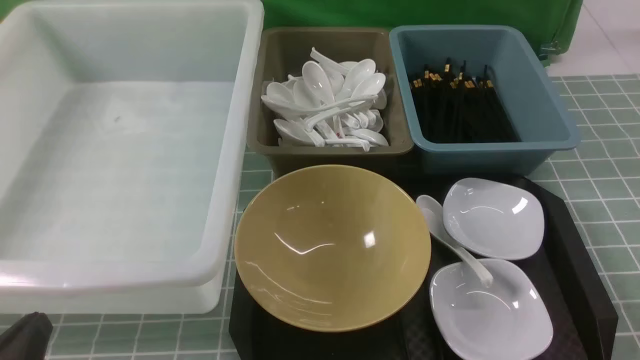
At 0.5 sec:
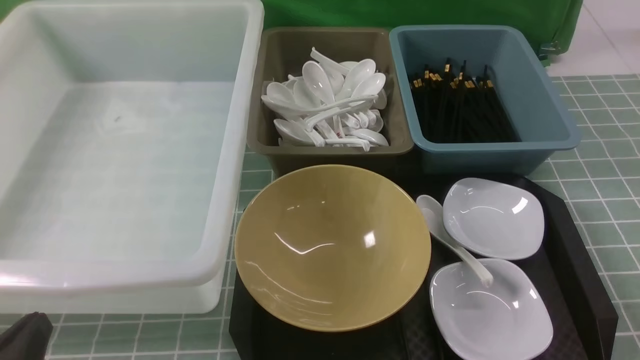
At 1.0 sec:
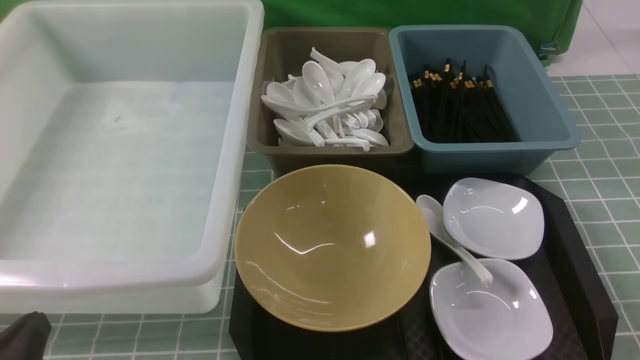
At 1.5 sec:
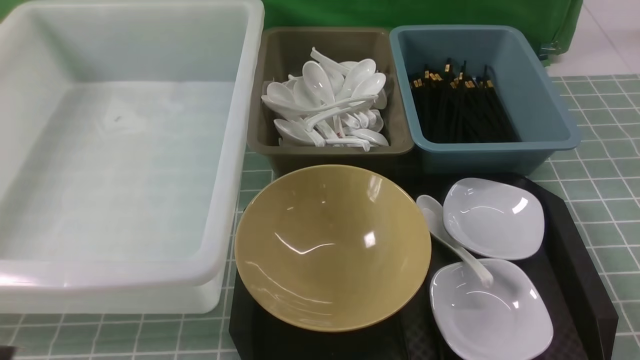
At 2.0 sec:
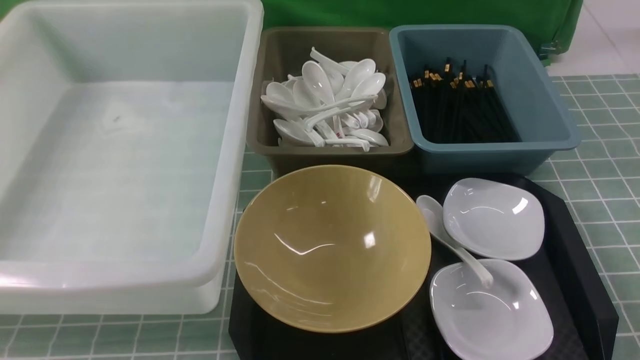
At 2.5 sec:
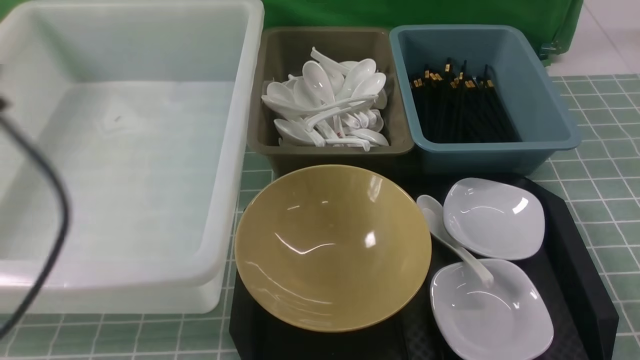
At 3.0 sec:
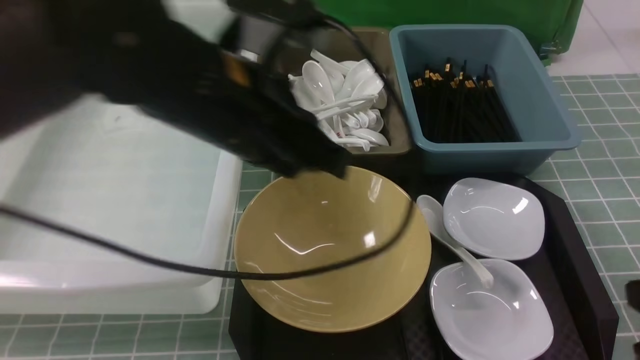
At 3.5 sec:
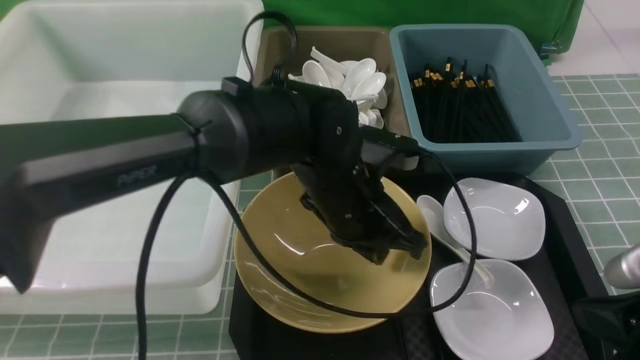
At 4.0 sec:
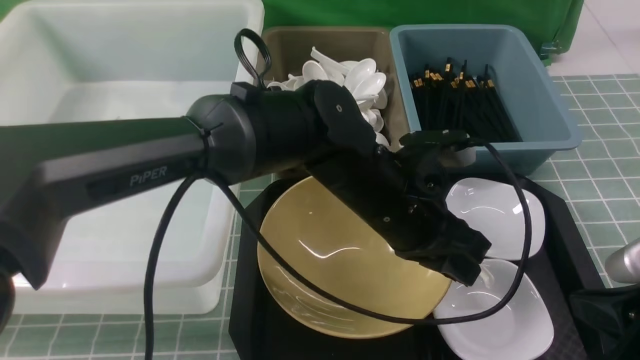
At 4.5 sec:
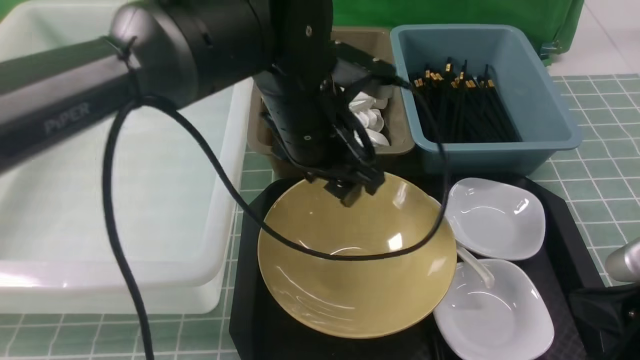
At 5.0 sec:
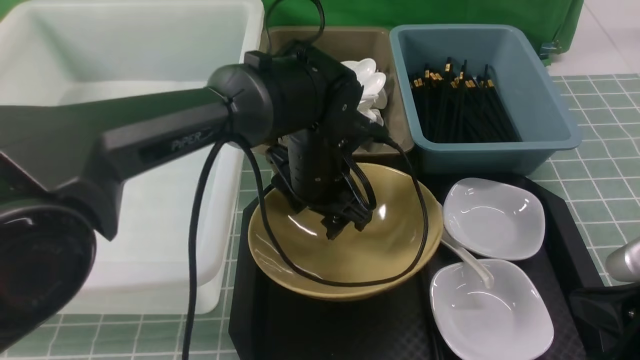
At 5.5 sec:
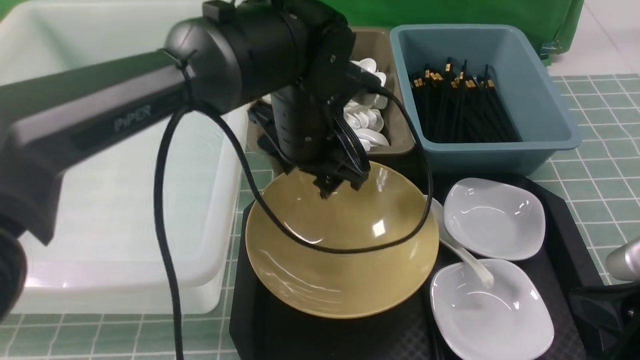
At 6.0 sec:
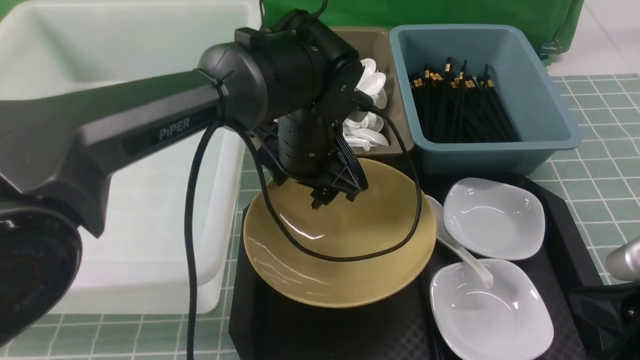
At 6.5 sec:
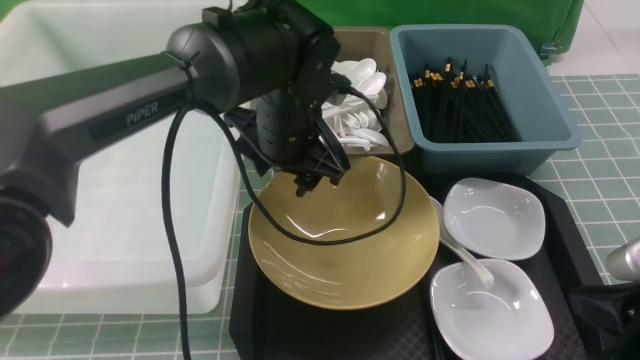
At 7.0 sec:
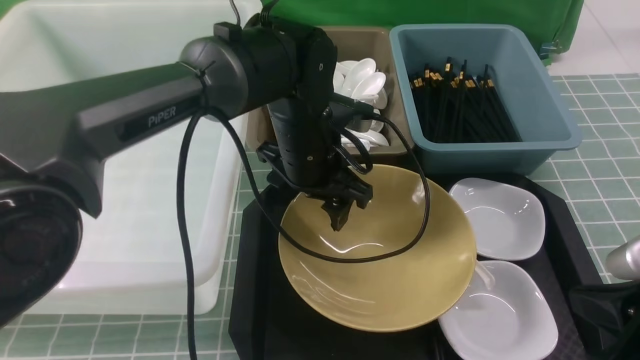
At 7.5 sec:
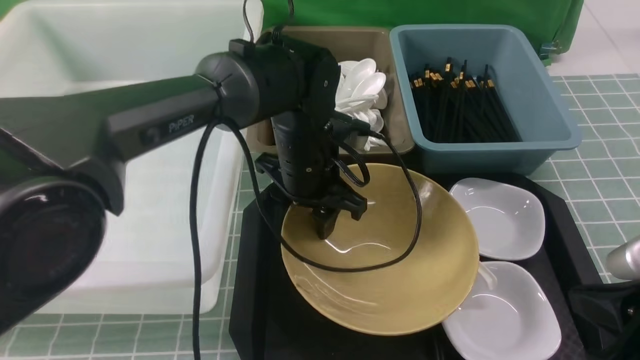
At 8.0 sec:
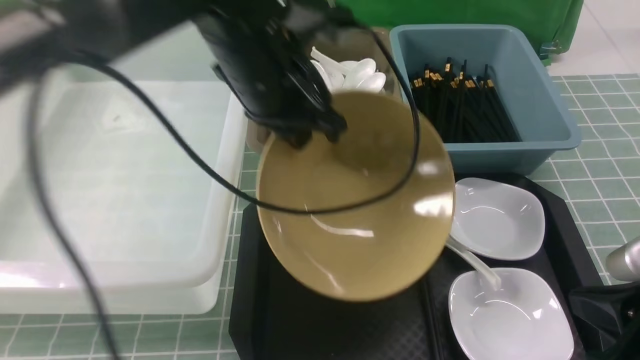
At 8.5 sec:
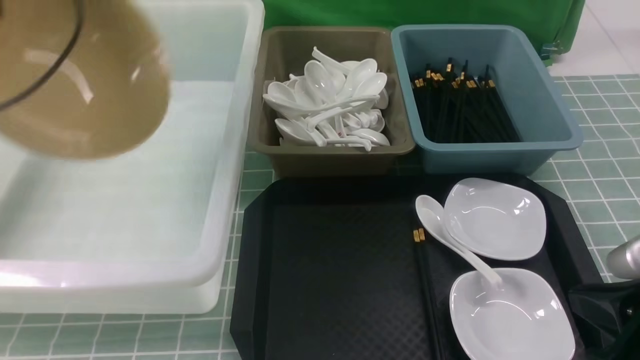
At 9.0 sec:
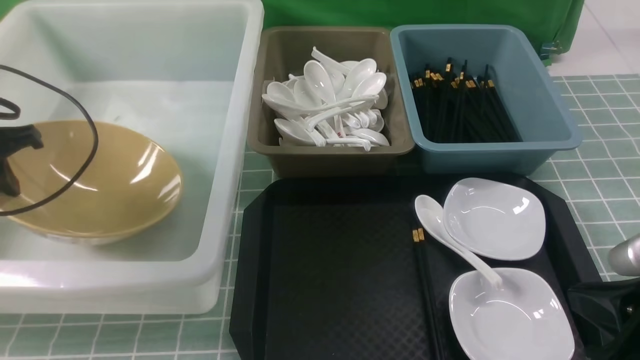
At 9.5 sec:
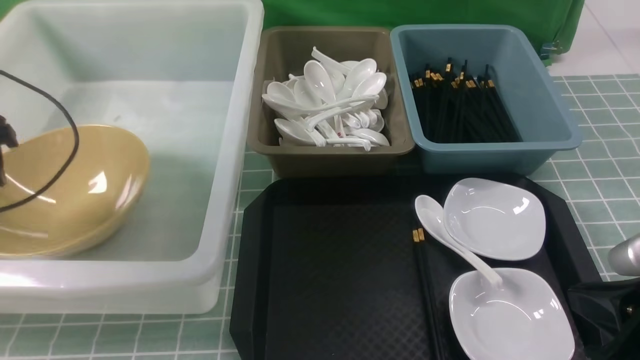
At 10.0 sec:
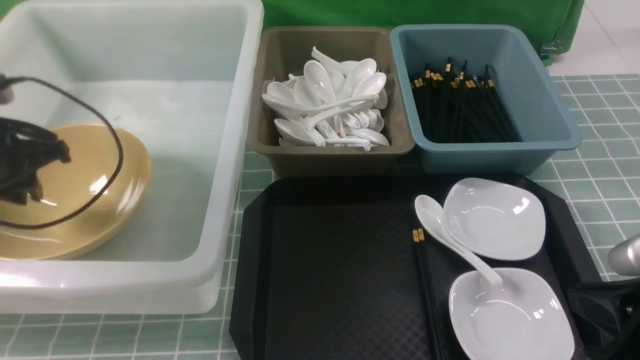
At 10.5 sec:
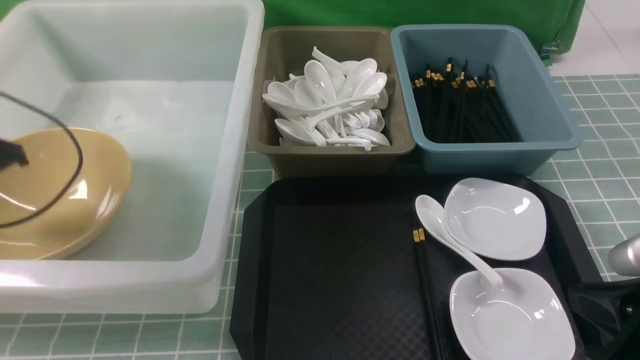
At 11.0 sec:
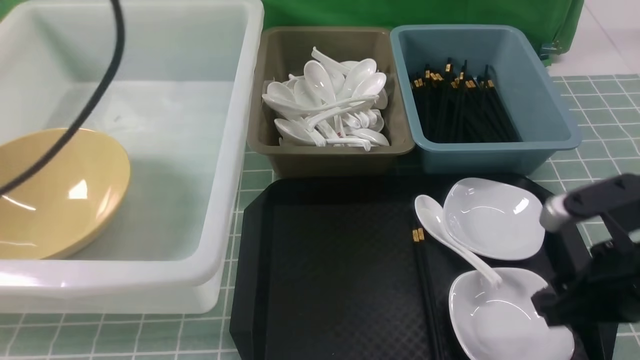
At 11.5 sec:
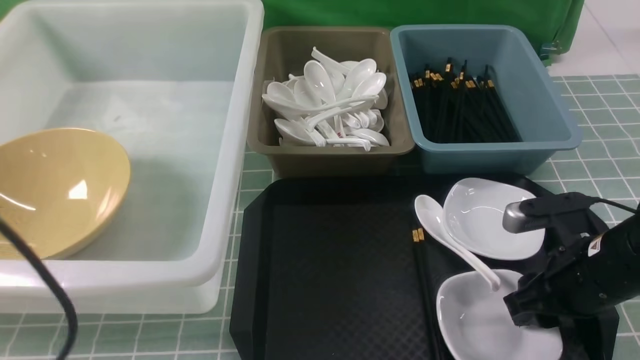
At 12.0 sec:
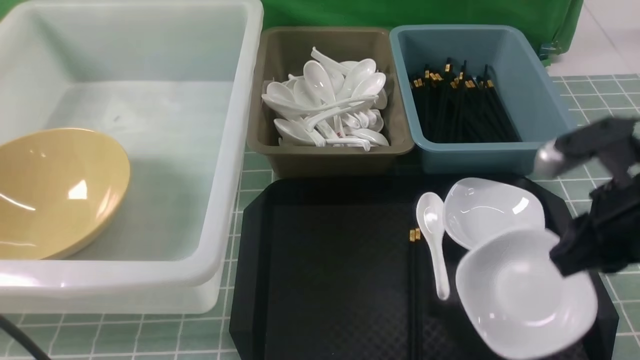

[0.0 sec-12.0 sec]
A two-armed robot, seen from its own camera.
Task of the whole recording: on blue table put chopsticks spoon bowls plates into blue grey white boxes.
Step, 0.0 sec to 7.5 sec: use the left arm to grab the yellow noodle bowl on the left.
Step, 8.0 sec to 9.5 sec: use the left arm to put the noodle bowl into the large storage box on the left.
Step, 10.0 sec to 11.5 sec: use the right arm to grab the plate.
0.0 sec to 2.0 sec: The left gripper goes about 15 cm upward.
2.0 sec to 4.0 sec: The right gripper heads forward, downward and to the left, covering approximately 15 cm. The left gripper is displaced to the right and forward by about 40 cm.
4.0 sec to 6.0 sec: The left gripper is displaced forward and to the left by some 10 cm, and opens.
6.0 sec to 8.0 sec: The left gripper heads upward and to the left, covering about 15 cm, and closes its fingers.
8.0 sec to 10.0 sec: The left gripper shifts roughly 30 cm to the left and downward, and opens, then closes once more.
10.0 sec to 12.0 sec: The left gripper travels backward by about 25 cm. Meanwhile the right gripper shifts roughly 10 cm forward and upward, and opens, then closes again.

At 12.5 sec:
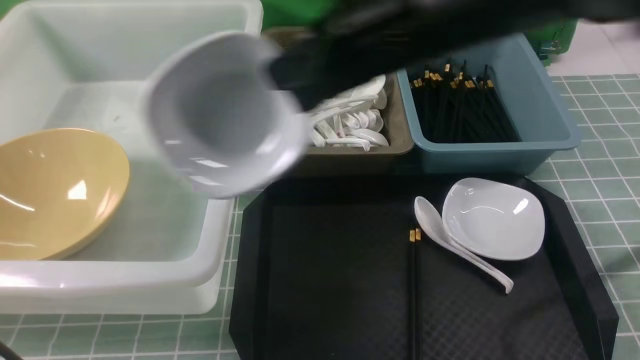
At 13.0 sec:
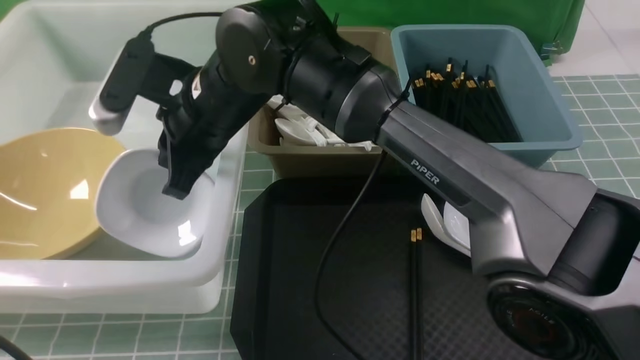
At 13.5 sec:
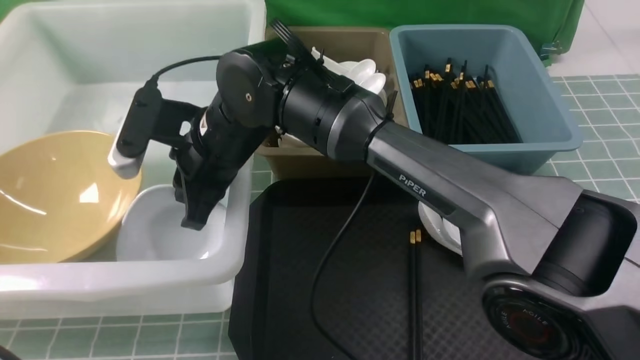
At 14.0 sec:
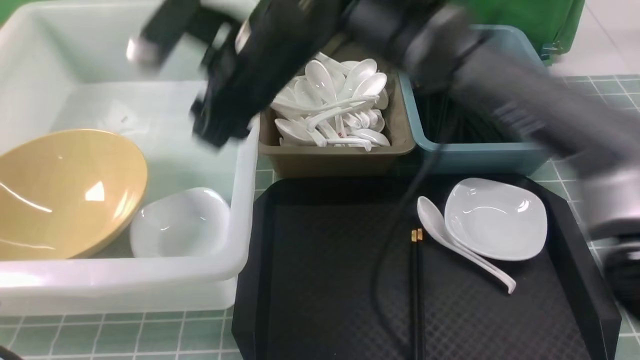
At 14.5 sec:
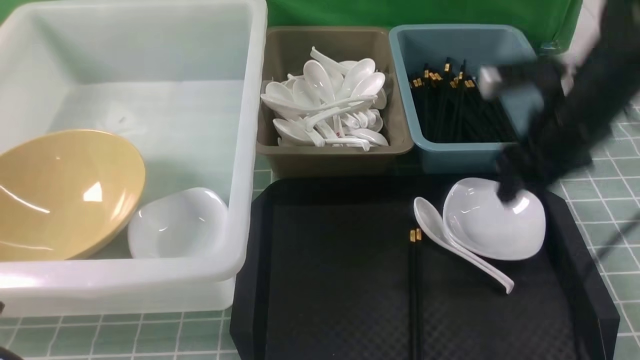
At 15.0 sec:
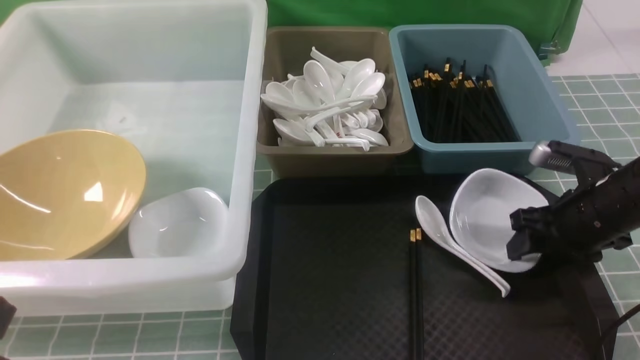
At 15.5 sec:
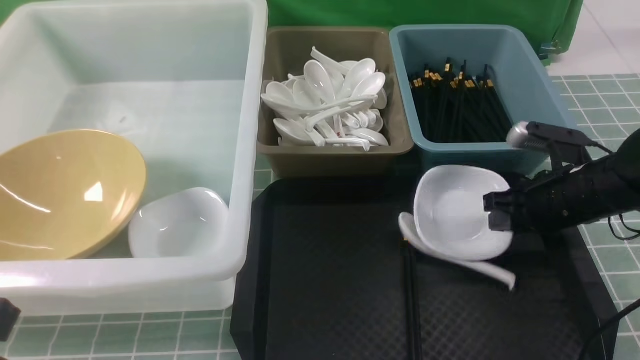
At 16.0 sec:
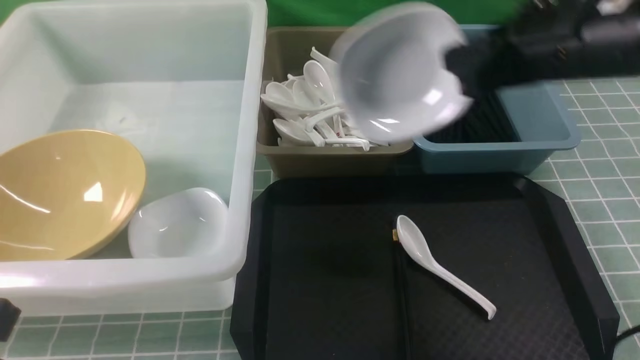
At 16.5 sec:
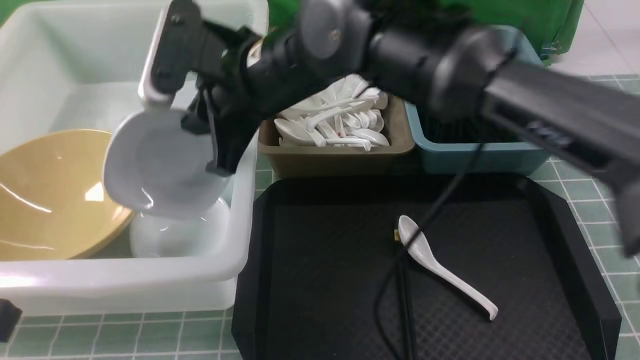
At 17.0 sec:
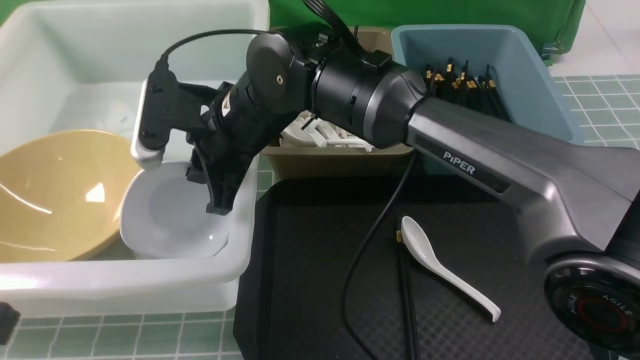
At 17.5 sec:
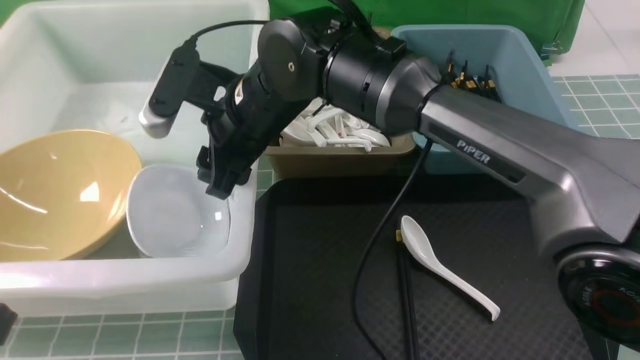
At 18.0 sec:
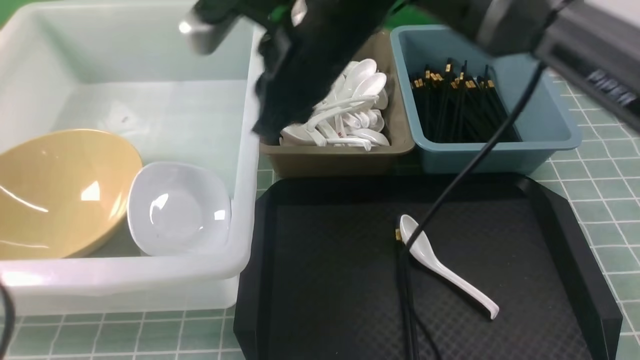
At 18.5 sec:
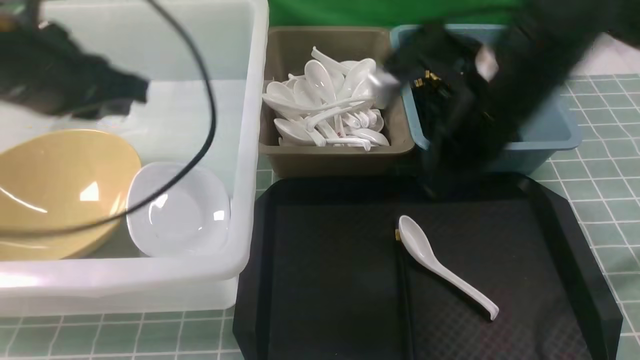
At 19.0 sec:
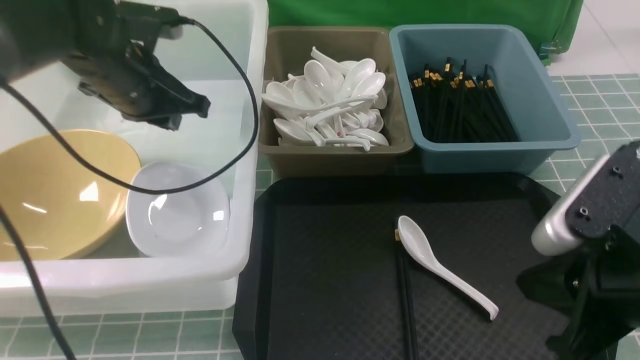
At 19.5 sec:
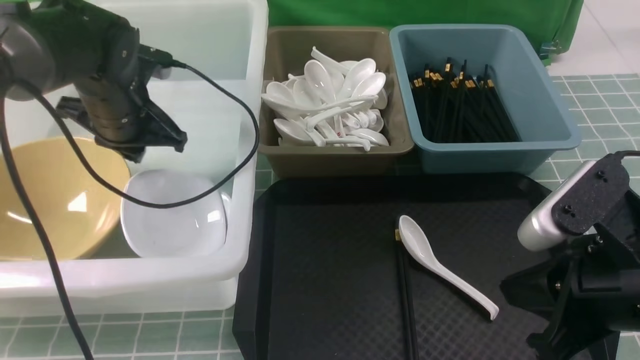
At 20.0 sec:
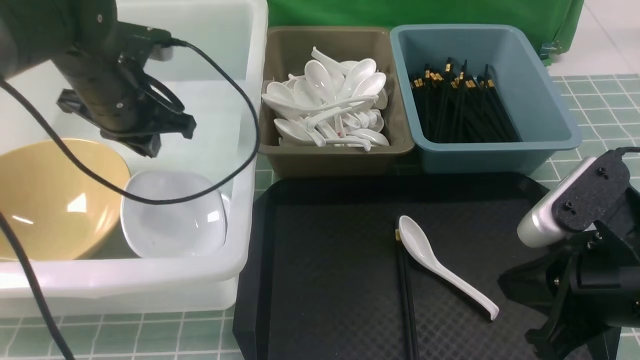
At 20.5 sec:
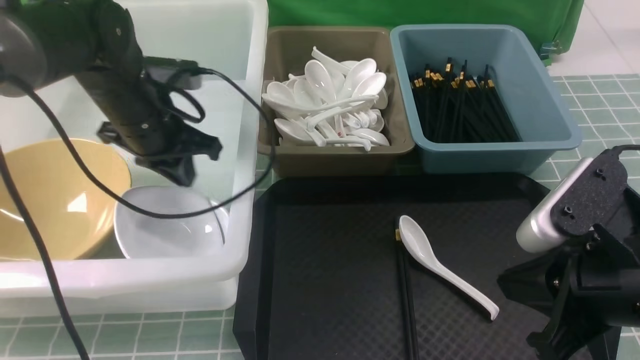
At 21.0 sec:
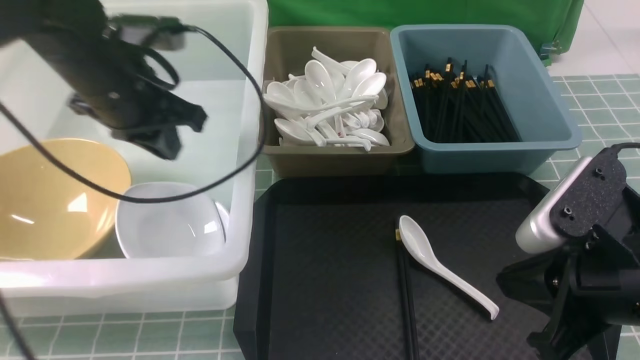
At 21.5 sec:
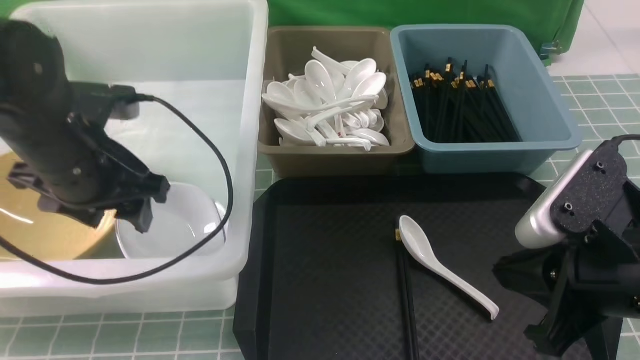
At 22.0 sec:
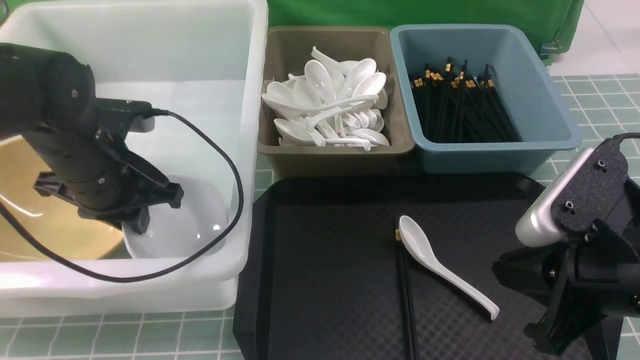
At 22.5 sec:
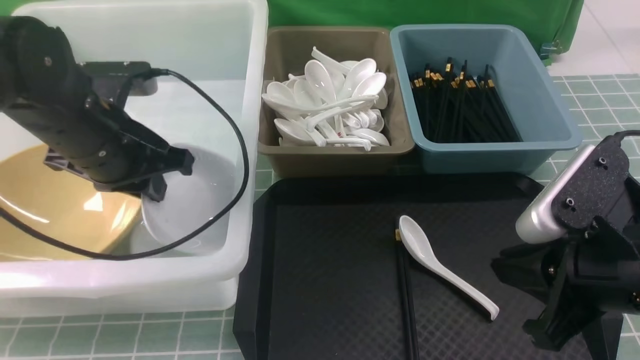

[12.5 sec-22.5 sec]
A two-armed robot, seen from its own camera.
Task of the whole recording: on blue table put chopsticks spoon bowls plates into blue grey white boxes.
Step, 12.5 sec to 13.5 sec: use the right arm to put the plate into the large storage box on the left.
Step, 14.0 sec to 15.5 sec: use the right arm to grab the plate.
Step, 16.0 sec to 17.5 sec: use the right arm to put the plate into the large storage box on the left.
12.5 sec to 14.5 sec: The right gripper travels to the right and downward by approximately 25 cm, and opens.
14.5 sec to 16.5 sec: The right gripper goes about 30 cm to the left, and closes up.
16.5 sec to 18.5 sec: The left gripper moves forward, approximately 20 cm. The right gripper travels to the right by about 20 cm, and opens, then closes again.
18.5 sec to 20.5 sec: The right gripper heads backward, to the right and downward, covering roughly 15 cm, while the left gripper is displaced downward and forward by about 15 cm.
20.5 sec to 22.5 sec: The left gripper is displaced backward by about 5 cm, and opens and closes again.
